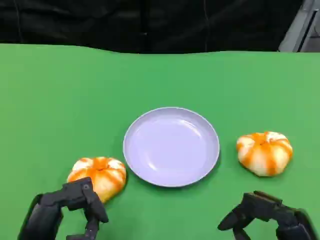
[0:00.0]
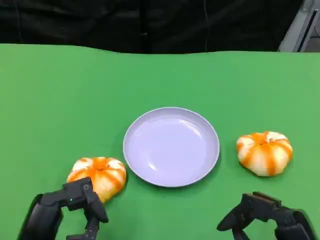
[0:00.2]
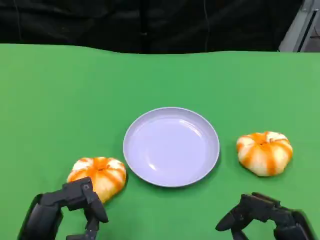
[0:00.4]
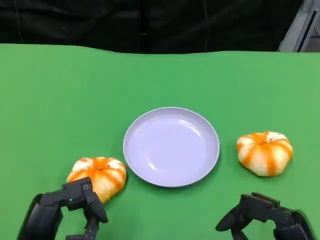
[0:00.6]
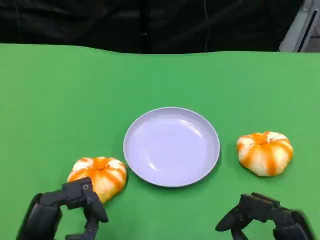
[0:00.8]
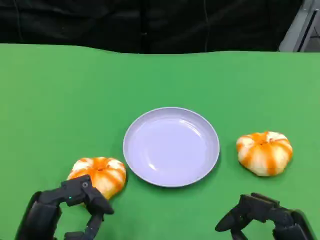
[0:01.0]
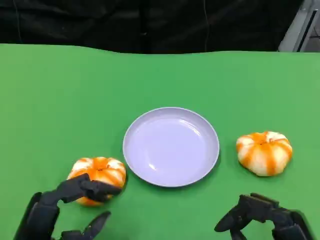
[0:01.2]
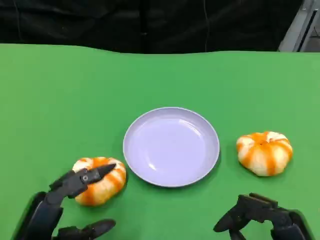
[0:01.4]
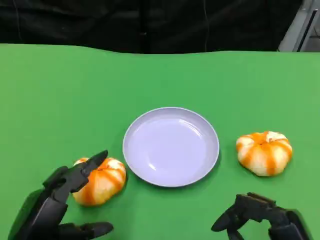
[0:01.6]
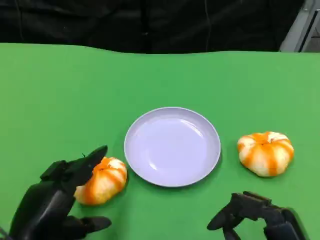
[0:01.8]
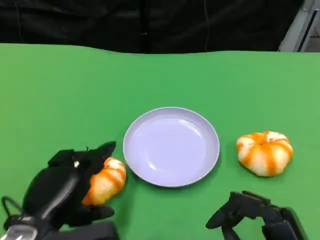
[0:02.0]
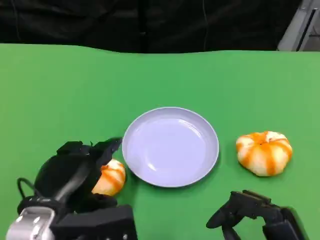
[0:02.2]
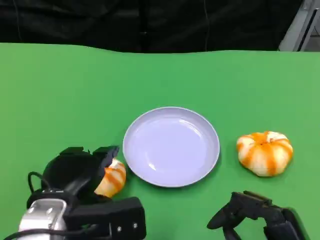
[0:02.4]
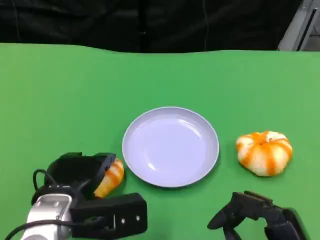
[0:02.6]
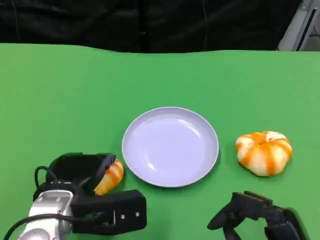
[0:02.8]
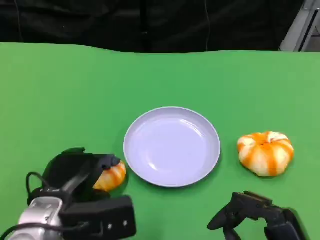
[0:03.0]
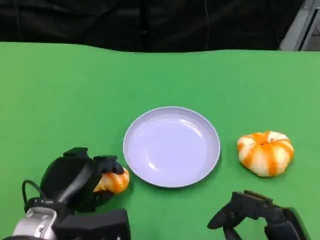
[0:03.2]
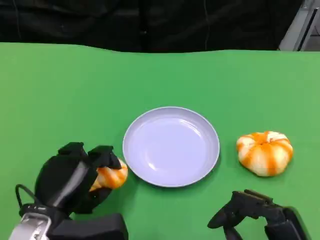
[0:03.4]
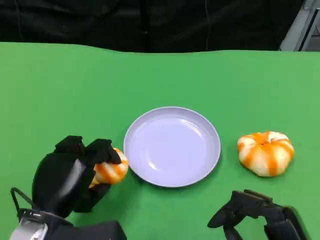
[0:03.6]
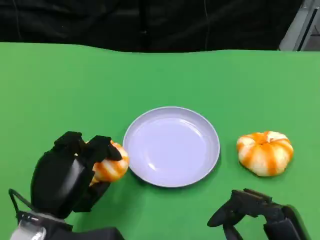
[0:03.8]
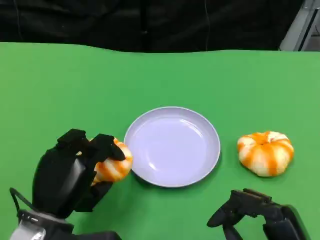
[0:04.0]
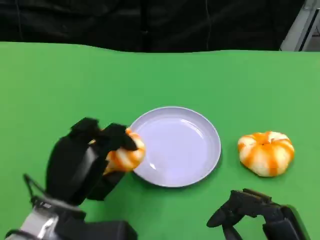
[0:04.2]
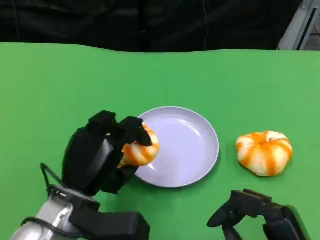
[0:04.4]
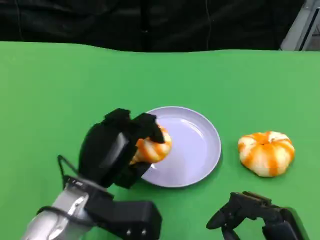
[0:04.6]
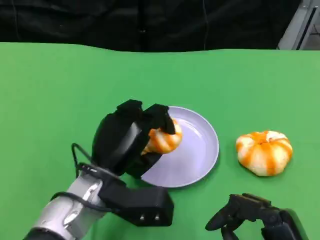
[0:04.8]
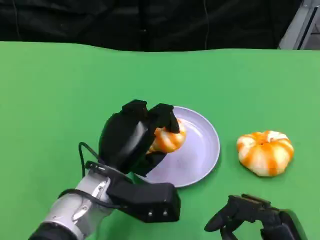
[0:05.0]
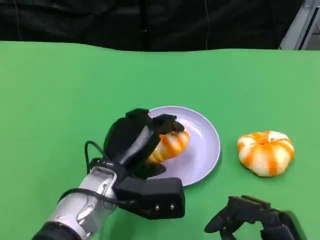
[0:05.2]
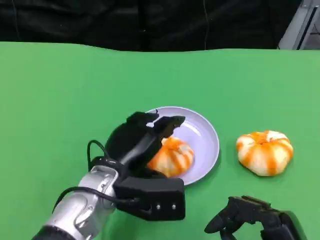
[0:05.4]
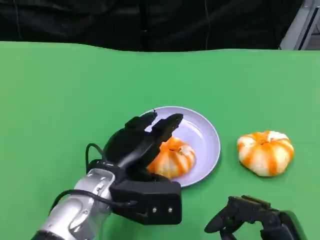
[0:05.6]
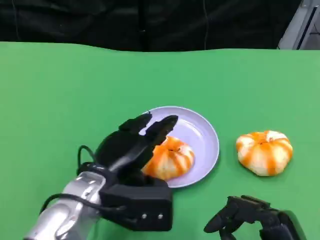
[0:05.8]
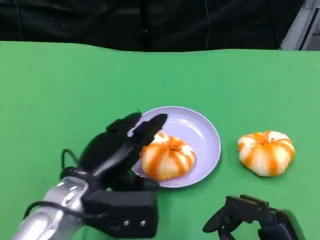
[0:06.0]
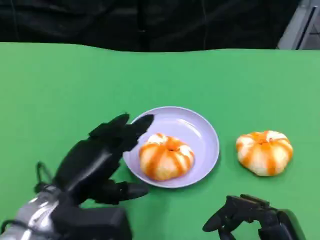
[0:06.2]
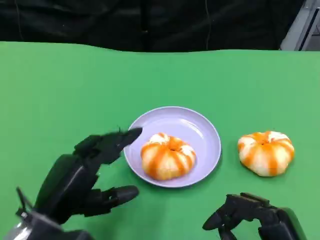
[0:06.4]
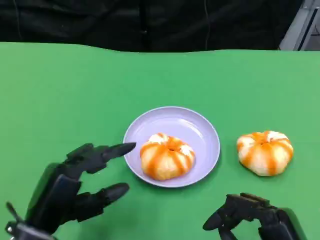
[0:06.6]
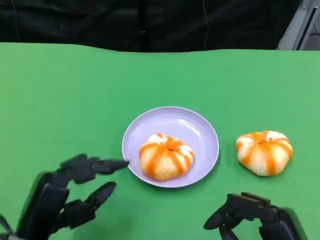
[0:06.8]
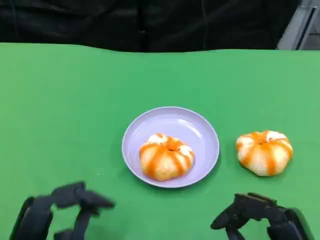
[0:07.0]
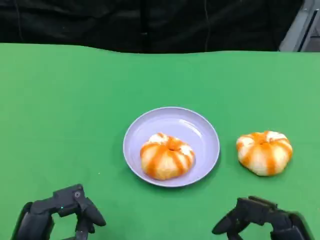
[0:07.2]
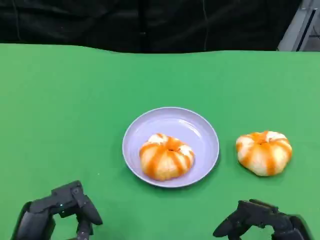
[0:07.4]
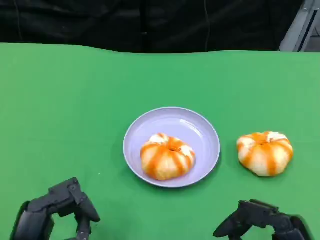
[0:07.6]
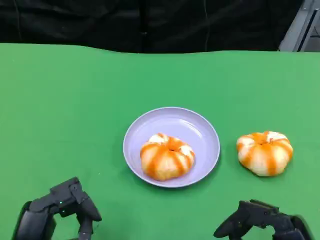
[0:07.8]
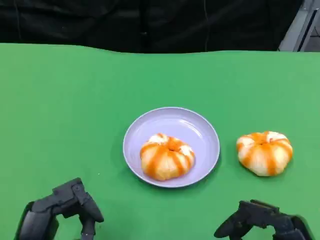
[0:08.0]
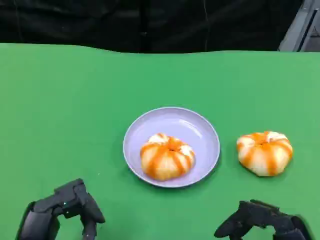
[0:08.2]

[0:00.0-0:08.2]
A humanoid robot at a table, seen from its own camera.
Task of the whole recording: Grasp the bread from the table and place it into the plate.
0:01.6 to 0:03.2: The left hand moves forward, about 5 cm.
0:03.2 to 0:05.0: The left hand is displaced to the right and forward by approximately 10 cm.
0:05.0 to 0:06.6: The left hand heads to the left and backward, covering some 15 cm.
0:06.6 to 0:08.2: The left hand goes approximately 5 cm backward.

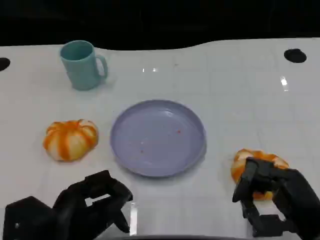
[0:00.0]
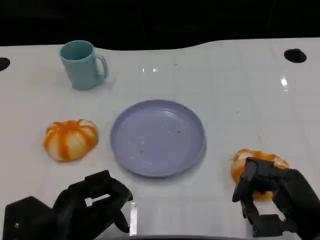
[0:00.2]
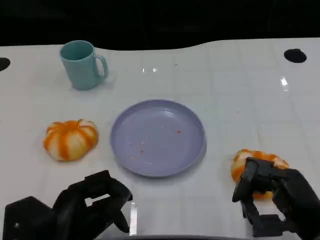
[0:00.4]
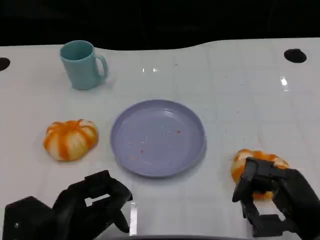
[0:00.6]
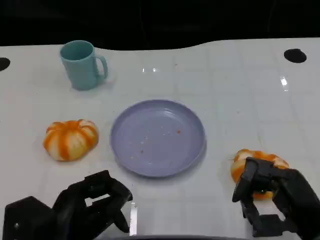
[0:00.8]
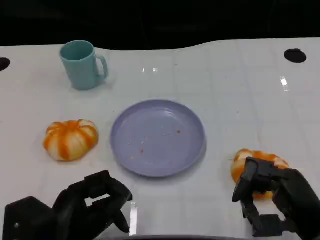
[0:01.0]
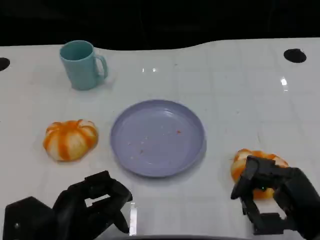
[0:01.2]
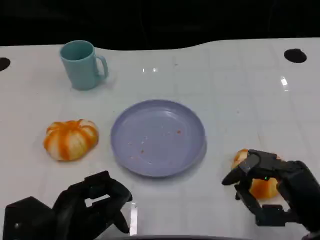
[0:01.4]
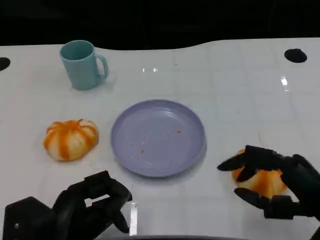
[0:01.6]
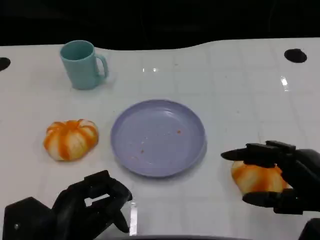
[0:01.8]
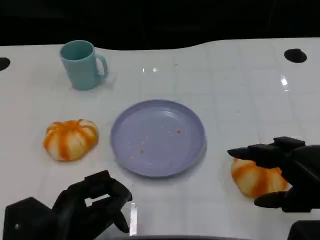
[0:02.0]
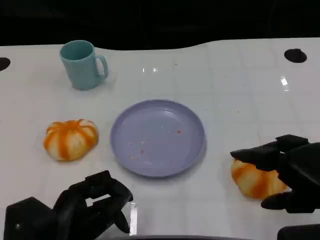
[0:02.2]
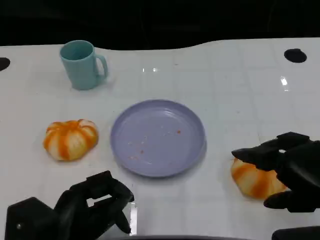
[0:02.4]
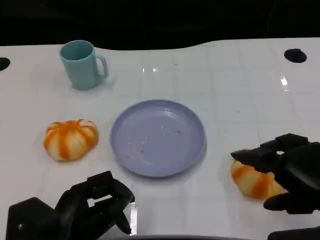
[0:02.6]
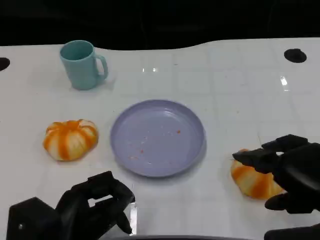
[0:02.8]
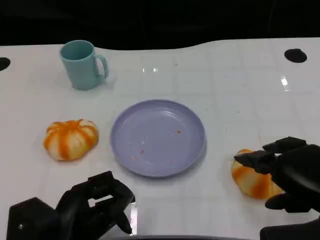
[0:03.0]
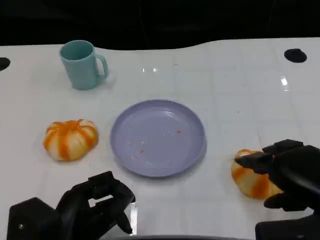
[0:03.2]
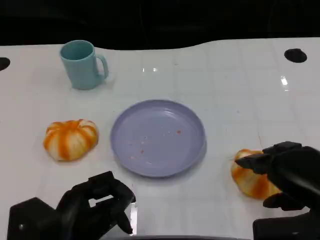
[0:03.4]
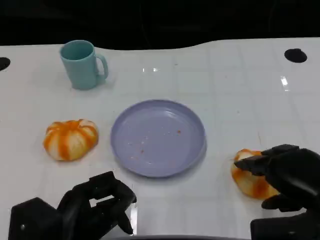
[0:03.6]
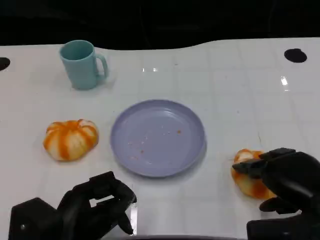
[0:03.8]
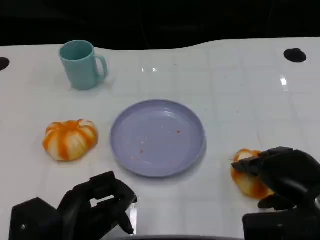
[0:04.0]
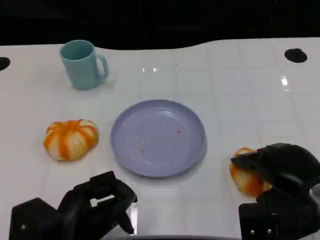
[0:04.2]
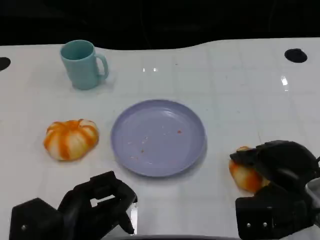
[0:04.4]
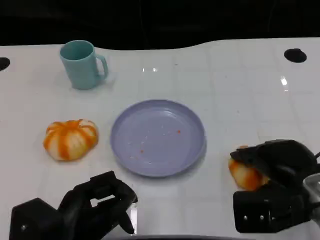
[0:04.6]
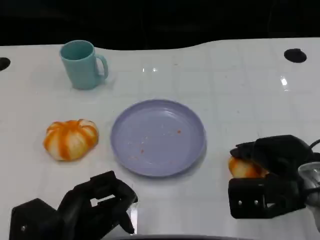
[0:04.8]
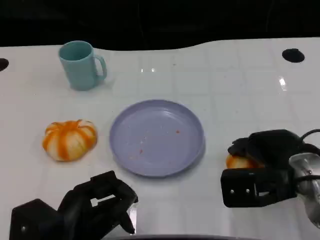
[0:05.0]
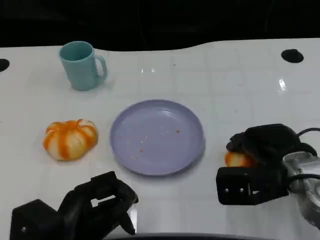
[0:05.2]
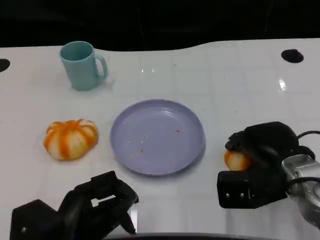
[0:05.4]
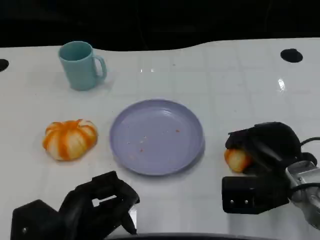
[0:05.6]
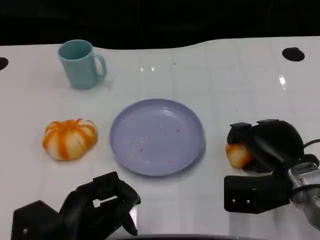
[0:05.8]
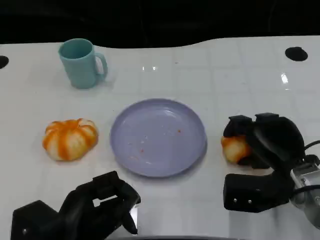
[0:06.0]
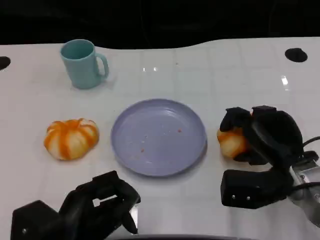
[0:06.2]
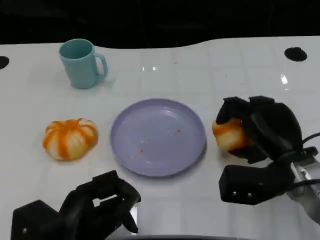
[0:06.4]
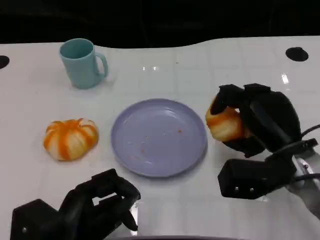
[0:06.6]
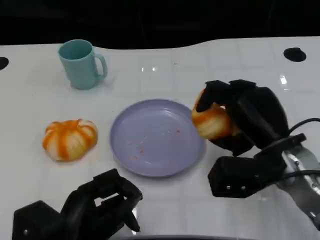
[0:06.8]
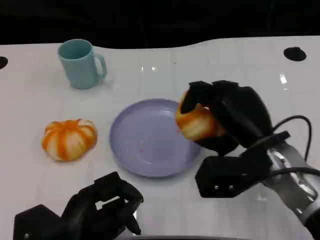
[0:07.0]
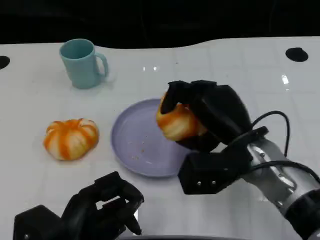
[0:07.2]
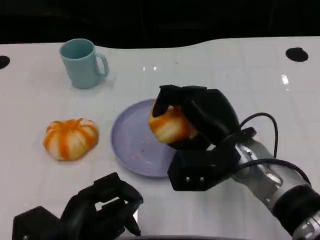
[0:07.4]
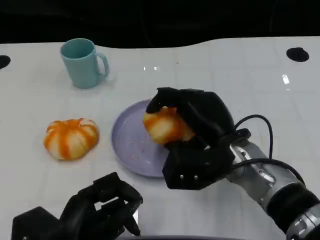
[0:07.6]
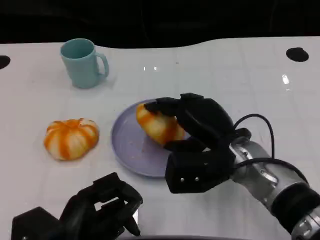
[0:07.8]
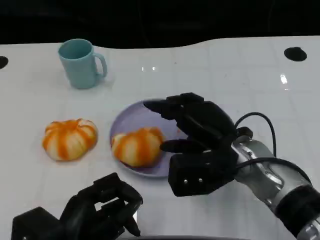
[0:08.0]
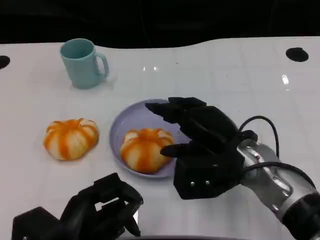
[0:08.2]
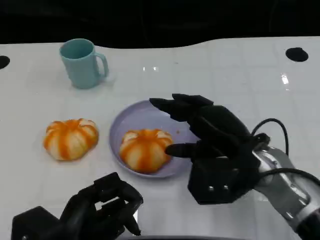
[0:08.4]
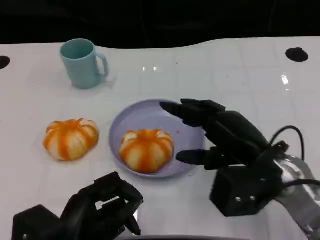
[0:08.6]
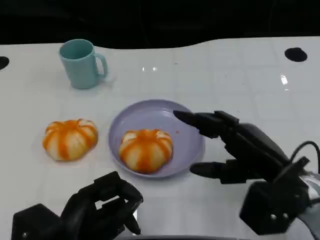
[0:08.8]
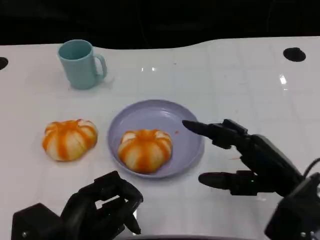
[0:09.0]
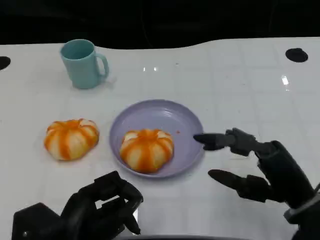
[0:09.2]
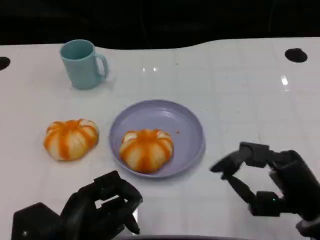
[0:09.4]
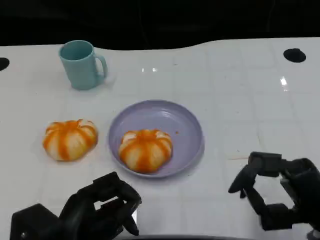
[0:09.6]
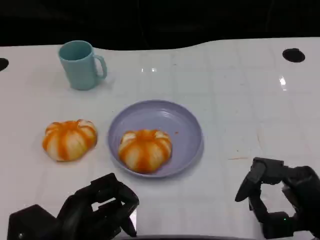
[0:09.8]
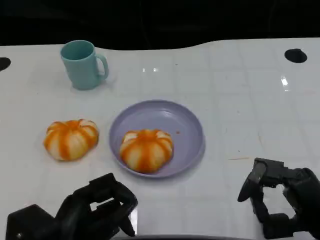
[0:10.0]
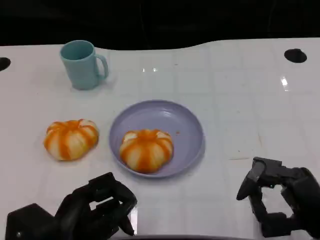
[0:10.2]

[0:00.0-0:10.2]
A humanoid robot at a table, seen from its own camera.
Task of the whole recording: Grasp the bread from the table and place it into the plate.
0:00.0 to 0:01.4: The hands move only a little.
0:01.4 to 0:03.0: The right hand shifts about 5 cm upward.
0:03.0 to 0:04.4: The right hand moves roughly 5 cm.
0:04.4 to 0:05.8: The right hand moves some 5 cm.
0:05.8 to 0:07.2: The right hand shifts about 10 cm to the left and upward.
0:07.2 to 0:08.8: The right hand heads to the right, covering roughly 5 cm.
0:08.8 to 0:10.2: The right hand heads backward, covering roughly 5 cm.

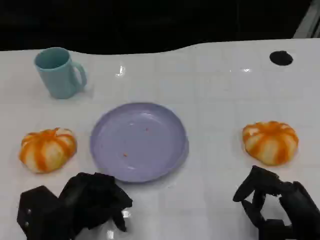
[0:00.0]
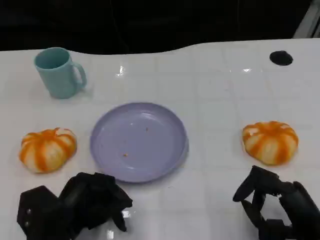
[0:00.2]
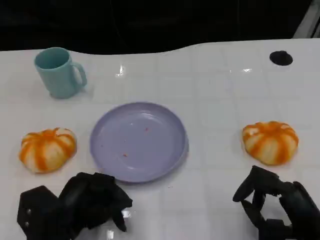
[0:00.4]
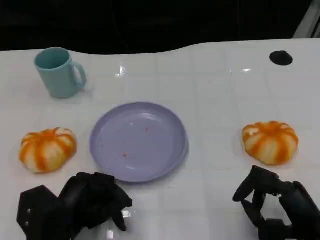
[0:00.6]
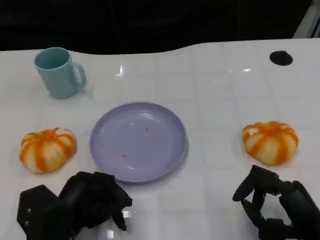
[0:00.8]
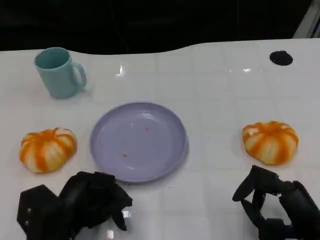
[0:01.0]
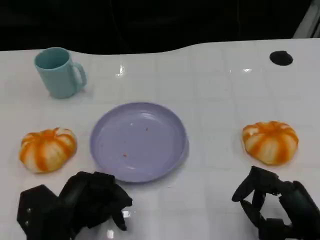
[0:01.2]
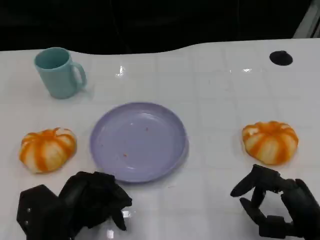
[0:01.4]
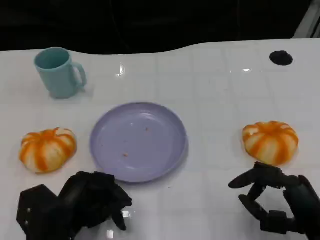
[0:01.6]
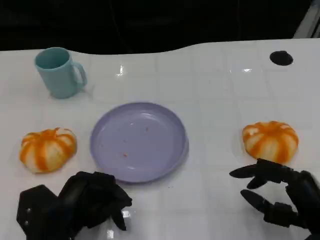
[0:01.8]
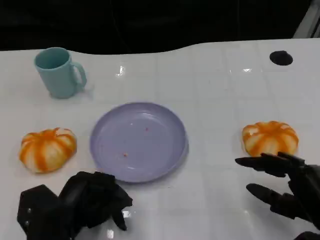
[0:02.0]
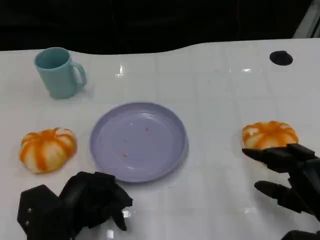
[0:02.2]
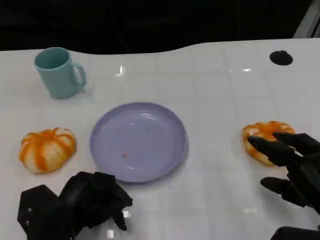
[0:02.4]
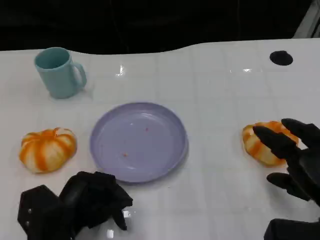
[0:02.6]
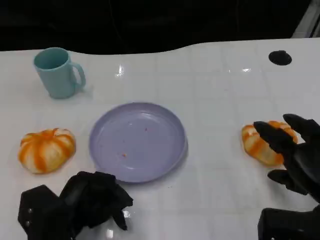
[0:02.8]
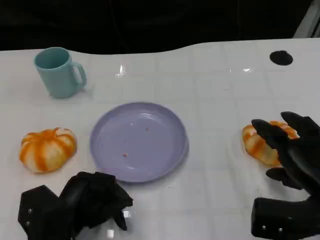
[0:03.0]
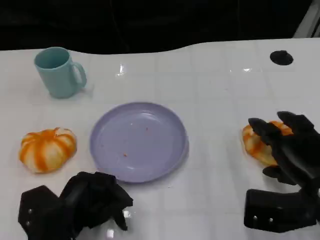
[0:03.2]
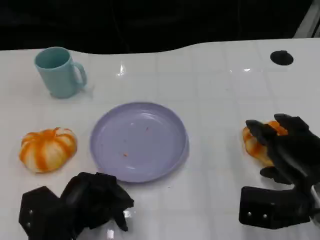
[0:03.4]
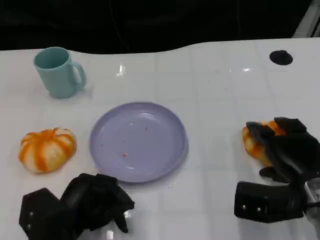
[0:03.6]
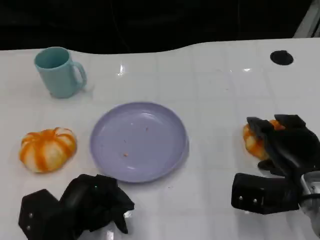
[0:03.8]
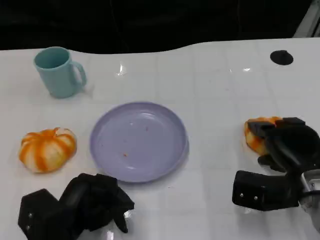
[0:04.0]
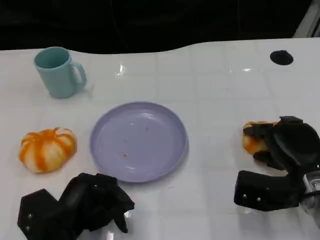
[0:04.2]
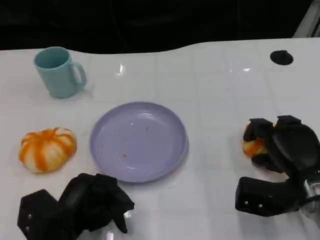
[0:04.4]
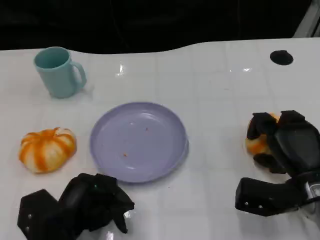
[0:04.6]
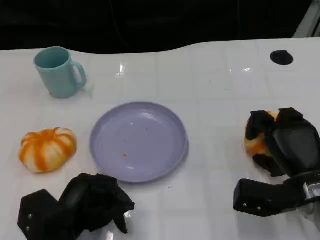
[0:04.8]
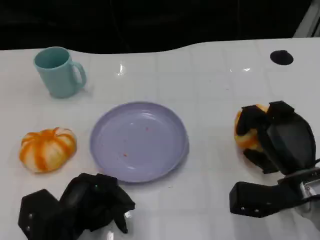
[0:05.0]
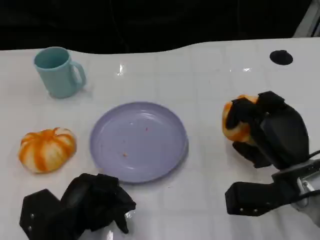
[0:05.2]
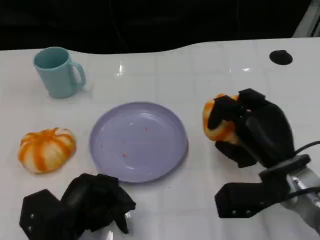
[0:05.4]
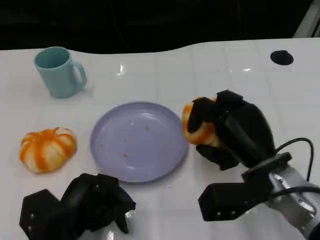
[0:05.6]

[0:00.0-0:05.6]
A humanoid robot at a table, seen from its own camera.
Task of the whole recording: Grasp the bread from the table and place it into the plate.
0:00.0 to 0:01.4: Neither hand changes place.
0:01.4 to 0:02.8: The right hand changes place by roughly 5 cm.
0:02.8 to 0:04.2: The right hand is displaced forward by approximately 5 cm.
0:04.2 to 0:05.6: The right hand goes approximately 5 cm to the left.
